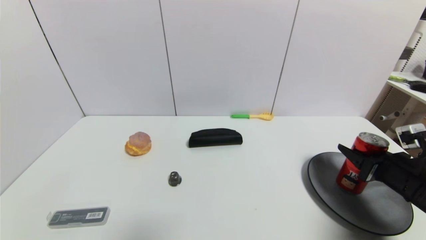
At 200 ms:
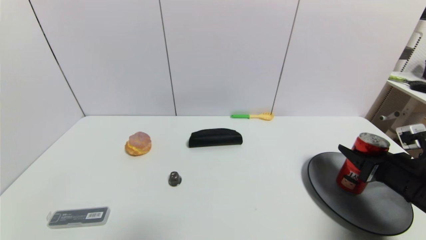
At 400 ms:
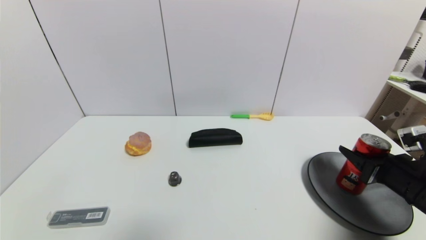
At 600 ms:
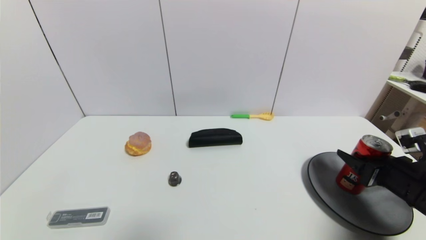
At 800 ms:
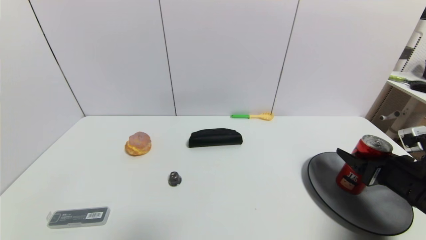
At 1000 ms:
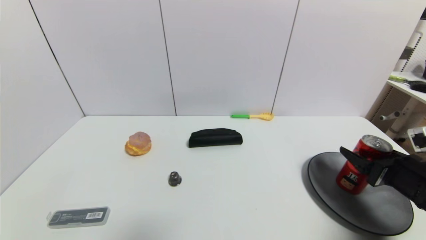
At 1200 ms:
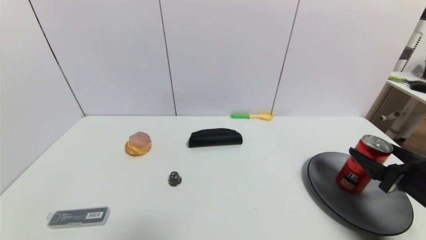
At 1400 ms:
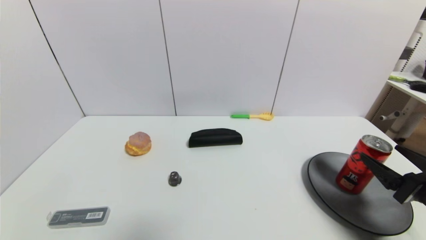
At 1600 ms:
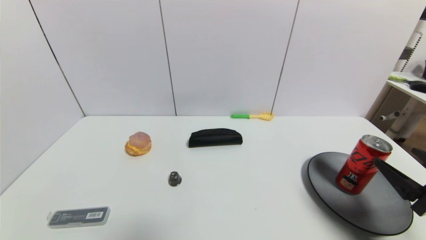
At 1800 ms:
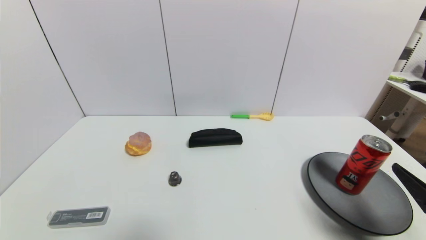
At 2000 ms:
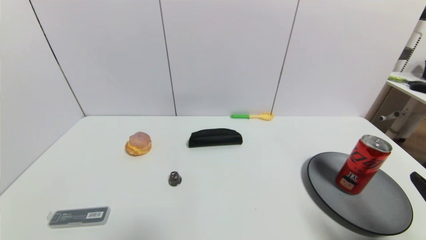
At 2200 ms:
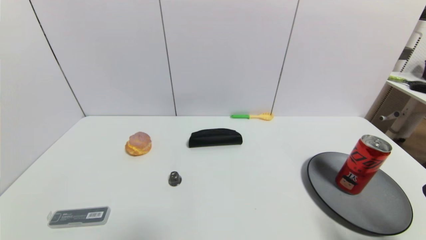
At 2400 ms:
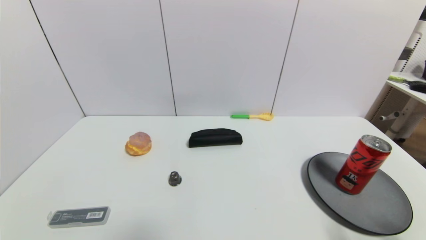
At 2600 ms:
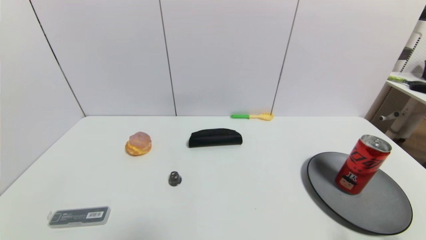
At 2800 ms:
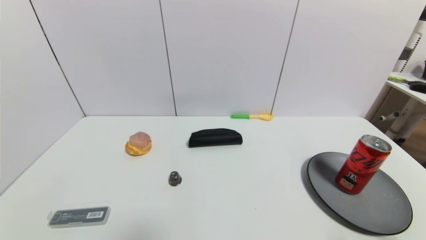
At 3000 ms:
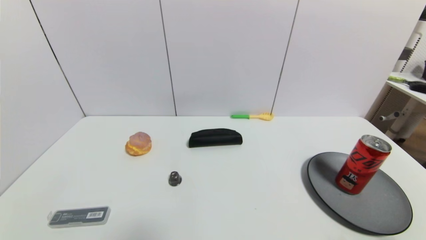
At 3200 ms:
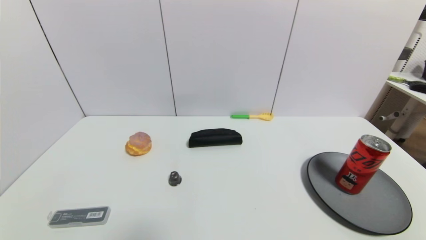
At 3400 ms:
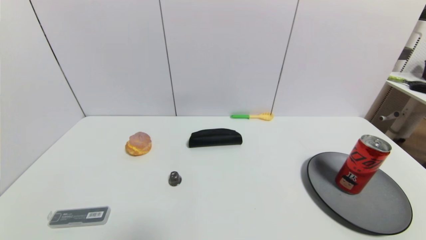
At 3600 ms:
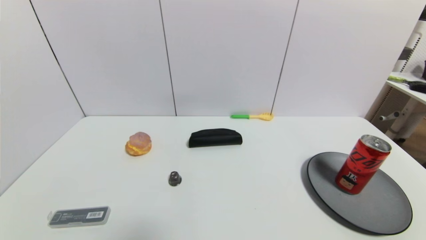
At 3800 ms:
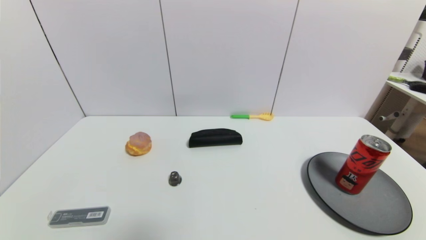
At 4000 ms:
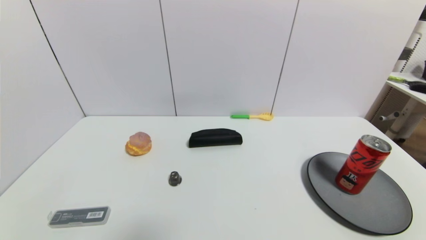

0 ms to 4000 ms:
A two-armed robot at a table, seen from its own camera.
Task of the whole recording: use a gripper to pick the target object and place on the gray plate.
0 ms to 1400 ms: The right gripper moves backward, about 10 cm, and opens its fingers.
1400 ms to 2600 ms: The right gripper travels backward by roughly 15 cm.
